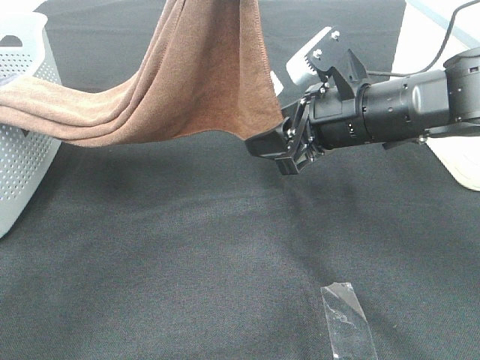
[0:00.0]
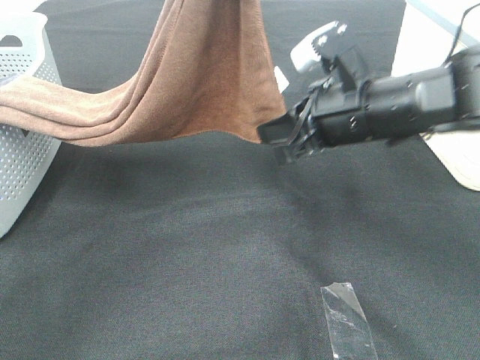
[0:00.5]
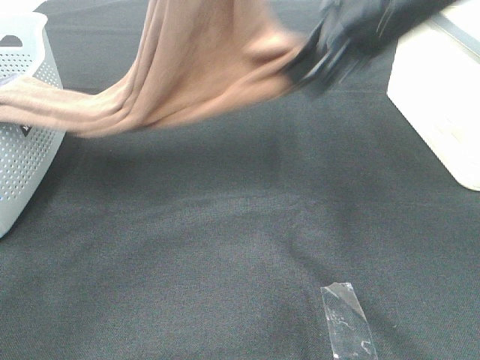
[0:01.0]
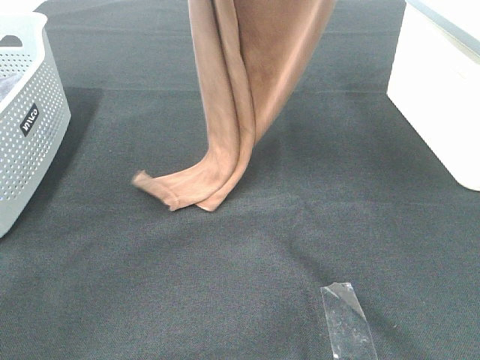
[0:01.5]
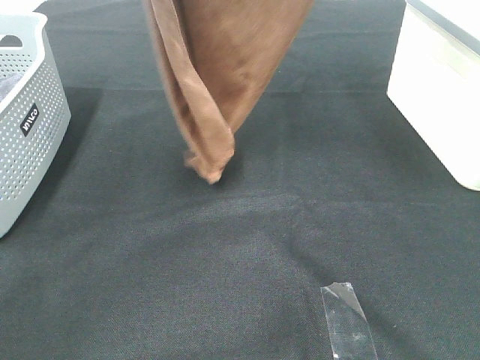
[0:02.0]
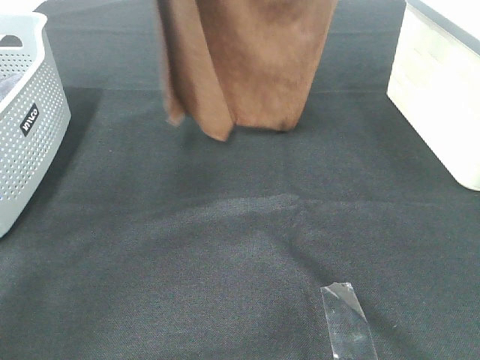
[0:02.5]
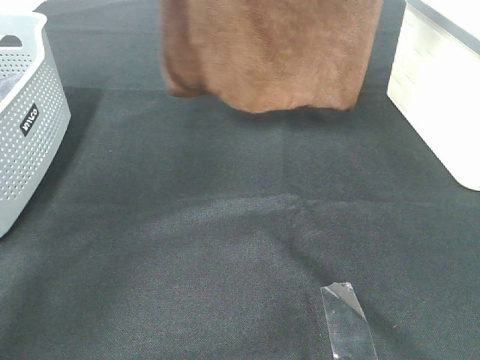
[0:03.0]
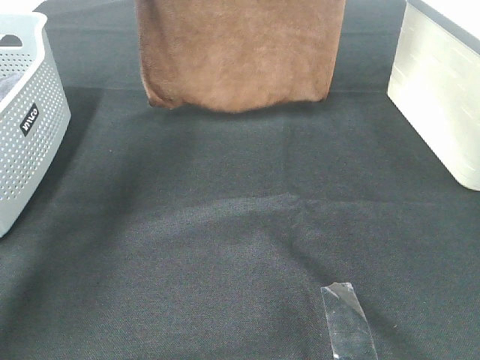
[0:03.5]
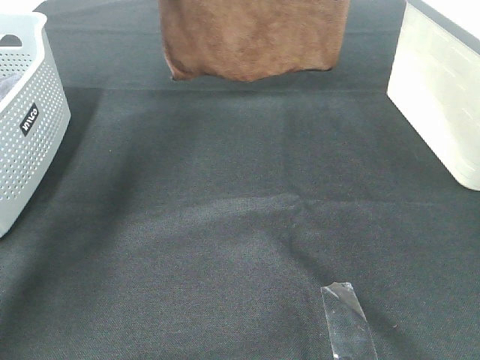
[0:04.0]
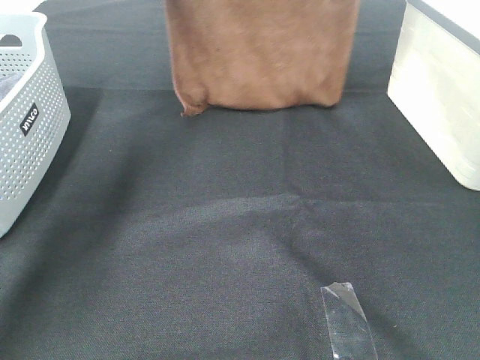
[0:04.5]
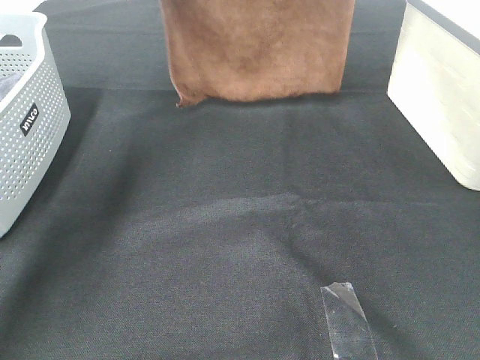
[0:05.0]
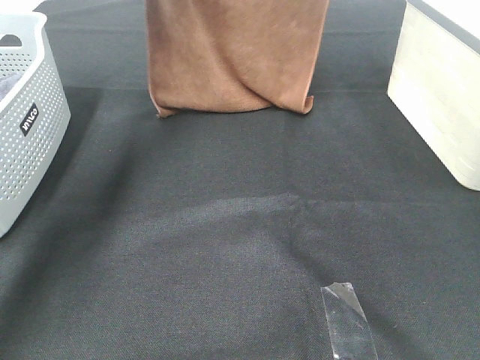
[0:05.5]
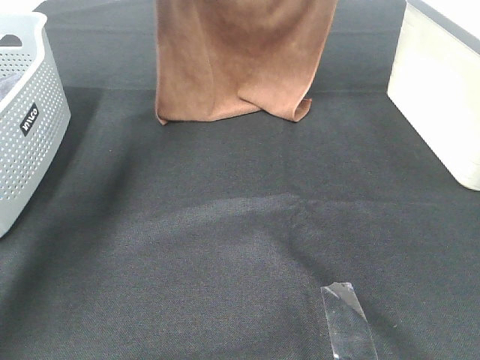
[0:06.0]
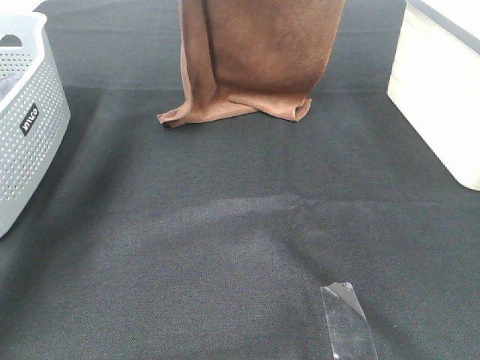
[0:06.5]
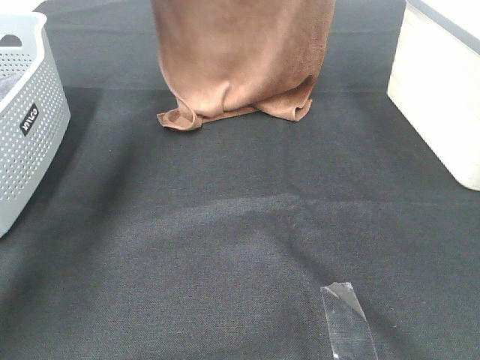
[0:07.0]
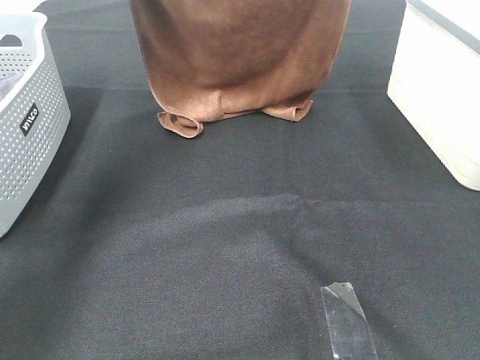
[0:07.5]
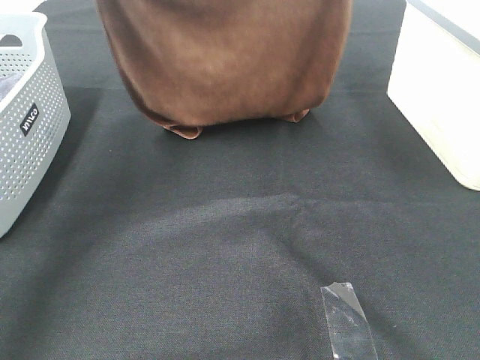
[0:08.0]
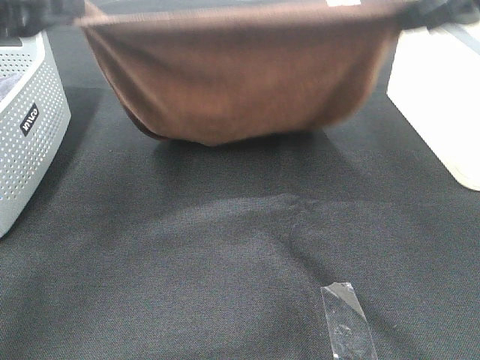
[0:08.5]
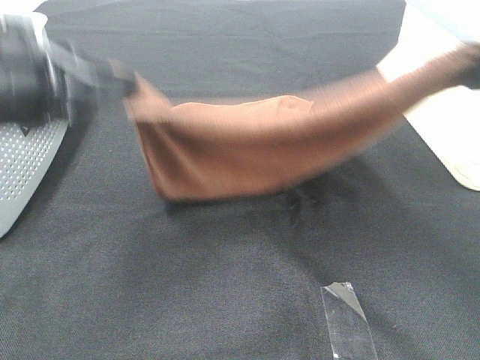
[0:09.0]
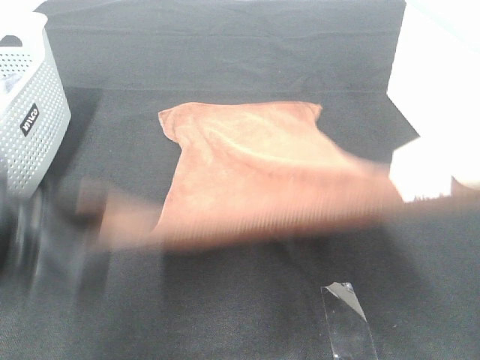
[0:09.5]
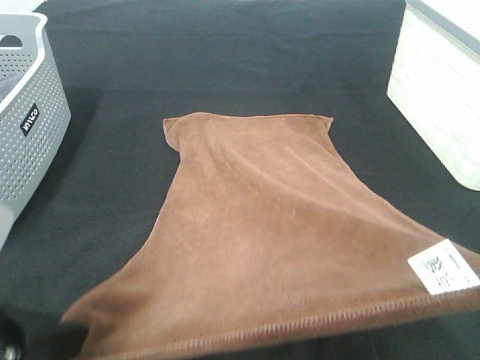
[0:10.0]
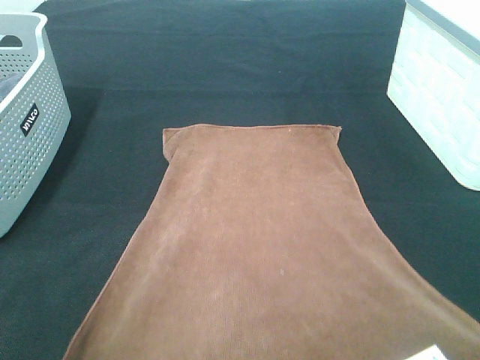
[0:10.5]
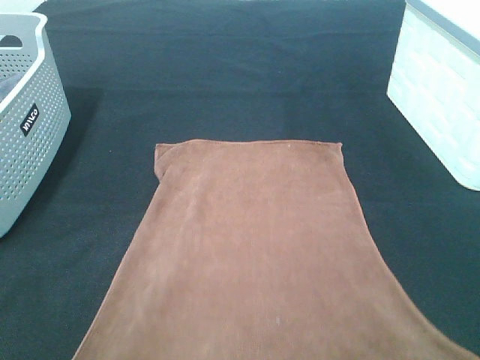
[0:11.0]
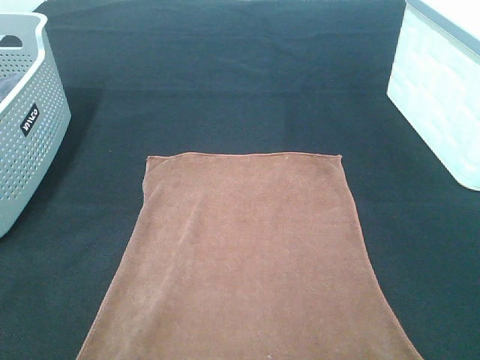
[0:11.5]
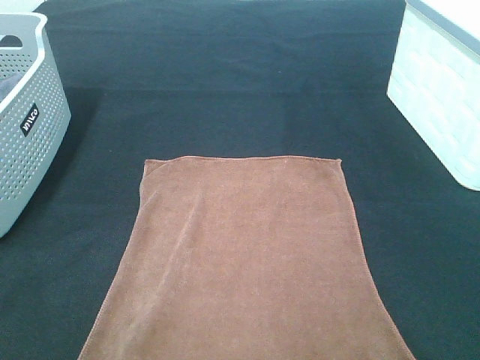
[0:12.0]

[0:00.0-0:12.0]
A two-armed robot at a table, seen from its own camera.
Task of the whole recording: Remove the towel and place it.
Step, 0:00.0 to 0:07.5: Left hand: spread the brown towel flat on the table.
Step, 0:00.0 to 0:07.5: Right hand: spread the brown towel flat on the table.
0:00.0 to 0:02.0: The right gripper shifts some 30 cm upward, and closes up, while the left gripper goes approximately 10 cm upward.
0:02.0 to 0:04.0: Both grippers travel together forward, approximately 15 cm.
0:04.0 to 0:06.0: Both grippers move downward, about 5 cm.
0:06.0 to 0:08.0: The left gripper moves backward, about 20 cm. The right gripper heads backward, covering some 10 cm.
0:08.0 to 0:10.0: Both grippers travel together backward, roughly 30 cm.
0:10.0 to 0:12.0: The right gripper shifts by some 5 cm, while the left gripper moves backward, approximately 10 cm.

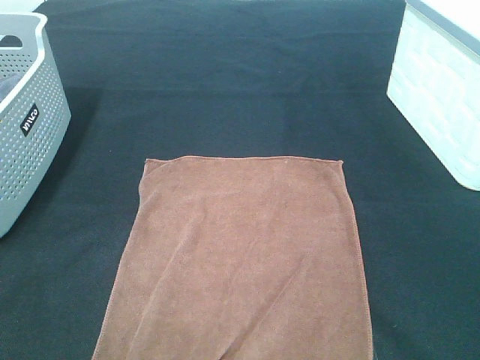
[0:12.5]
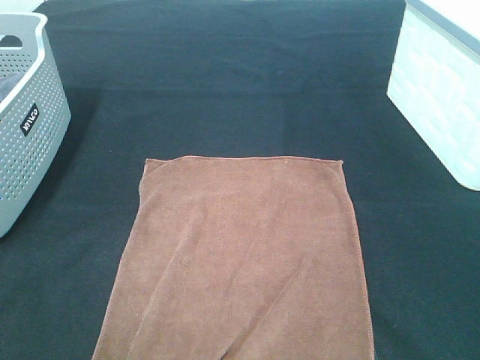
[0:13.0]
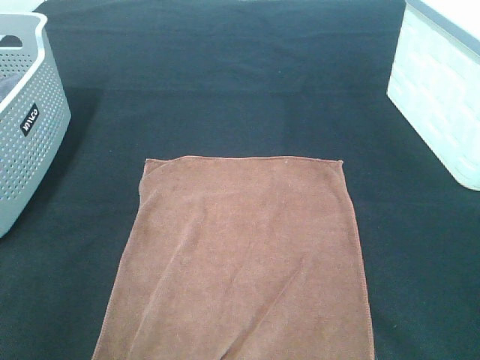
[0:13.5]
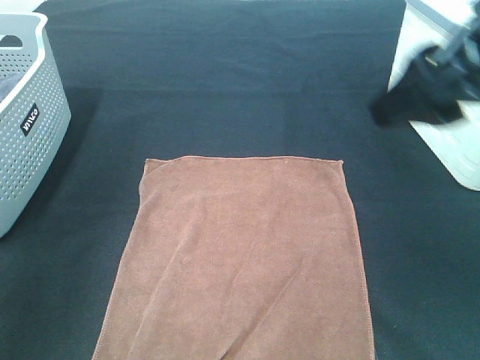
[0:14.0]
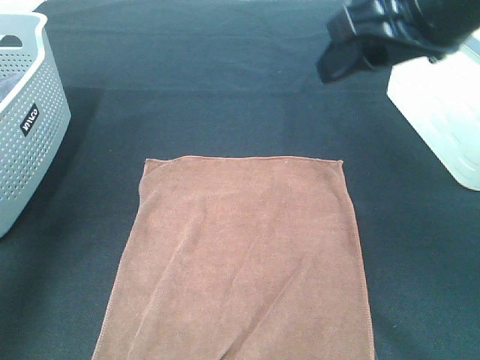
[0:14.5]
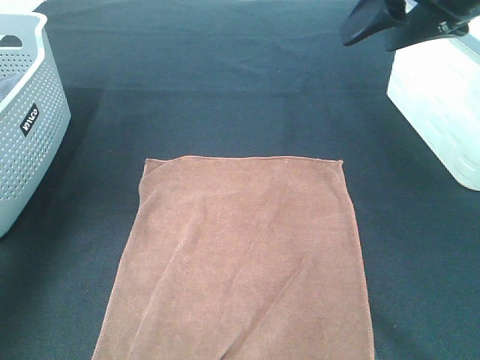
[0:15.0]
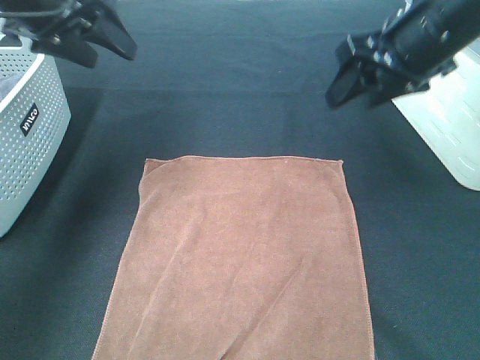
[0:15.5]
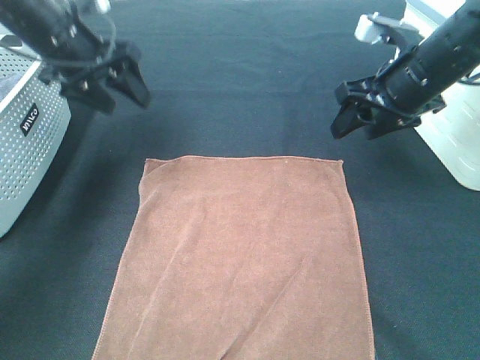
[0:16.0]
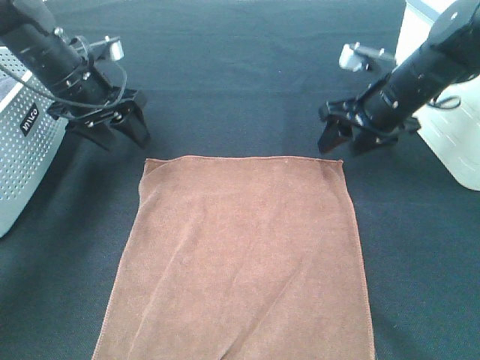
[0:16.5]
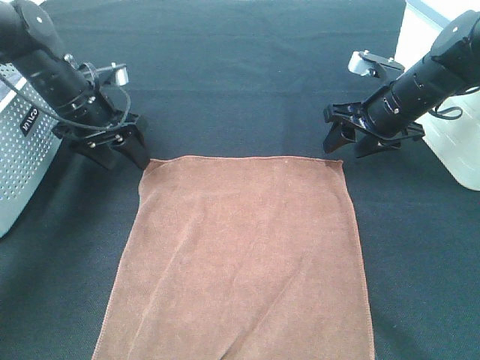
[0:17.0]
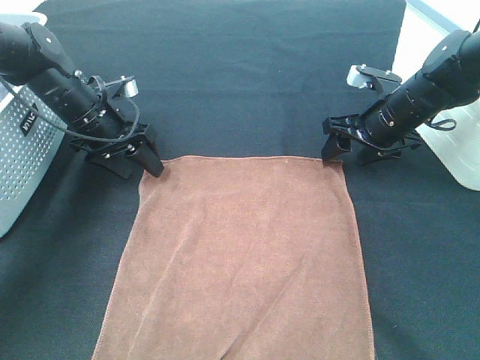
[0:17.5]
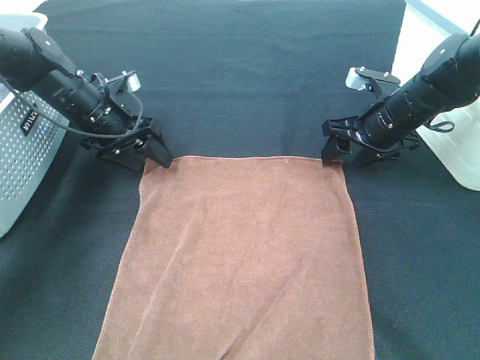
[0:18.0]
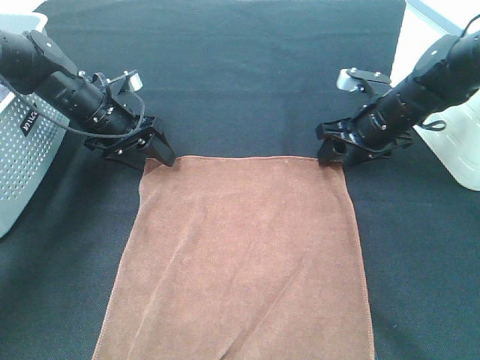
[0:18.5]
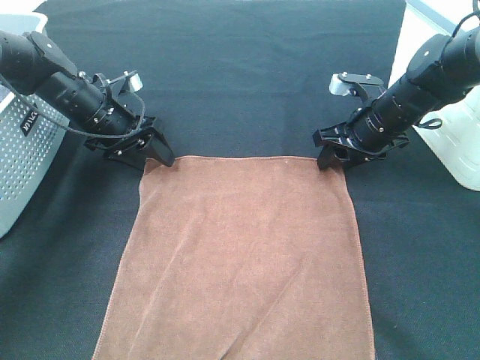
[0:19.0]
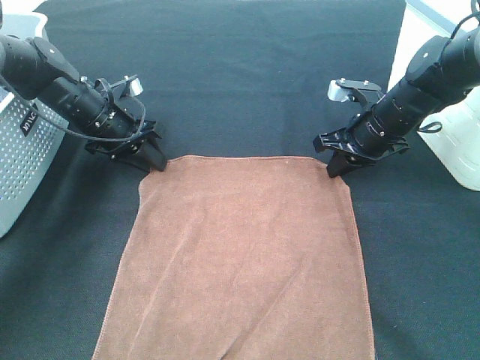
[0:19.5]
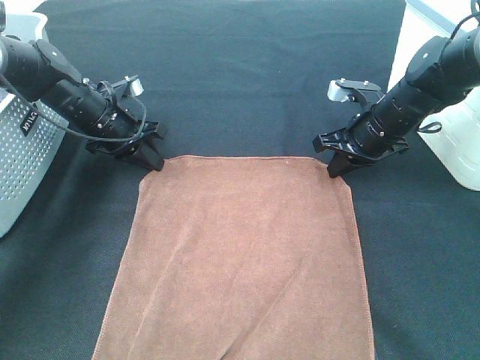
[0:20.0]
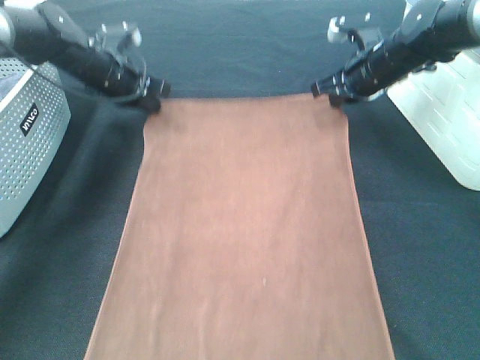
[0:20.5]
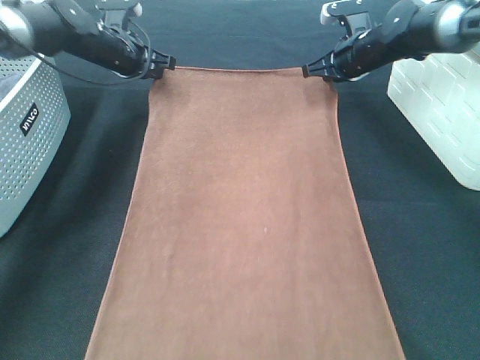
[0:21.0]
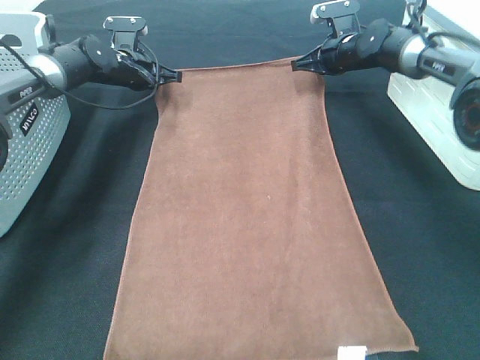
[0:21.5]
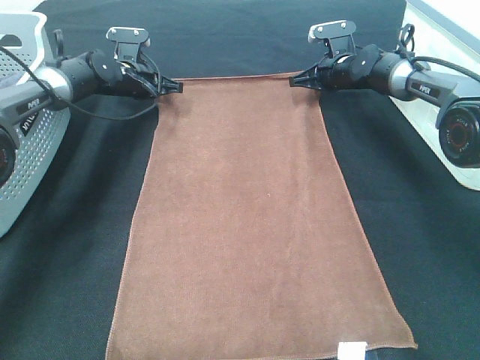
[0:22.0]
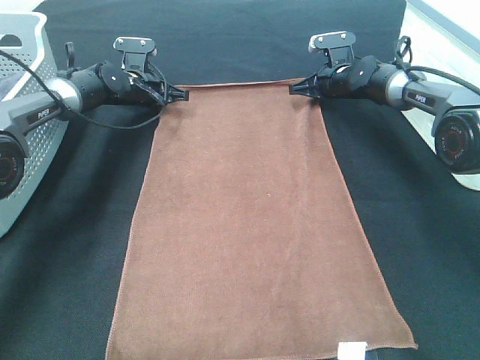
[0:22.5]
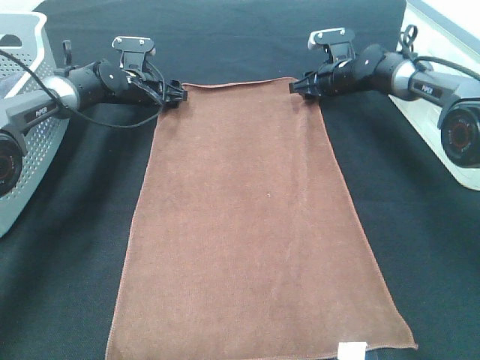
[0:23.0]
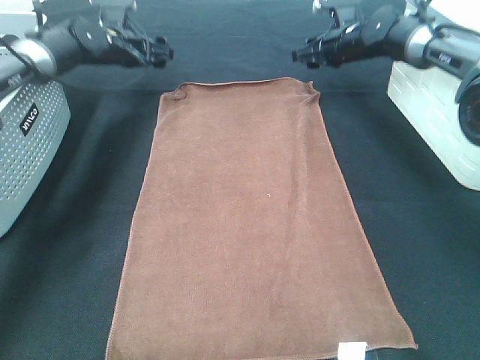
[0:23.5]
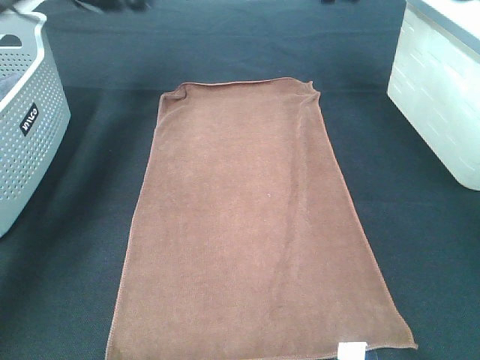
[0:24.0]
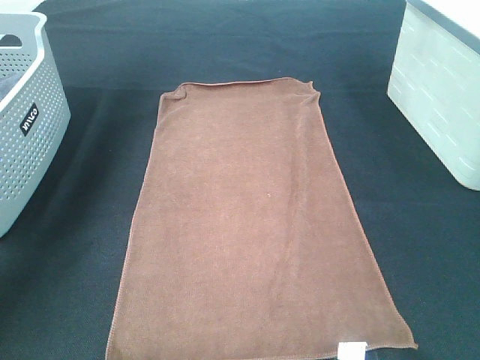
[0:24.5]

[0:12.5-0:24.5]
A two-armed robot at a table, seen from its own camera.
Task of the whole recording: Remove the towel and place it.
Step, 0:12.5 to 0:16.0: Left hand:adjust the brown towel.
Step, 0:12.5 to 0:16.0: Right hand:adjust the brown towel.
0:12.5 to 0:14.5: The right gripper shifts roughly 25 cm forward; the left gripper travels forward and upward by approximately 35 cm.
0:14.5 to 0:16.5: Both grippers move downward and forward, some 25 cm.
0:16.5 to 0:18.5: The left gripper goes some 5 cm downward.
0:18.5 to 0:20.5: The left gripper travels forward by roughly 5 cm, and closes up, while the right gripper moves forward and upward, some 10 cm, and closes.
0:20.5 to 0:22.5: The left gripper moves downward and forward, roughly 10 cm. Meanwhile the right gripper shifts approximately 15 cm forward and downward.
0:22.5 to 0:24.5: The grippers both shift upward by about 30 cm. The right gripper opens its fingers, while the left gripper opens its fingers.

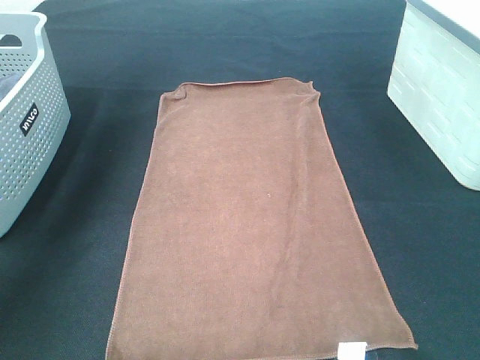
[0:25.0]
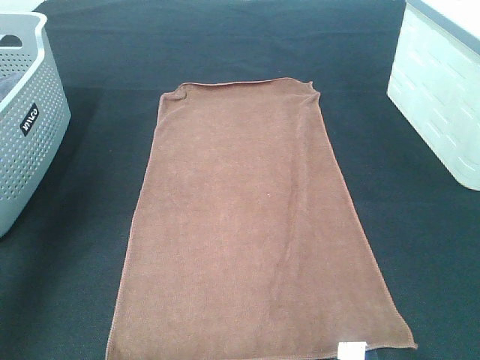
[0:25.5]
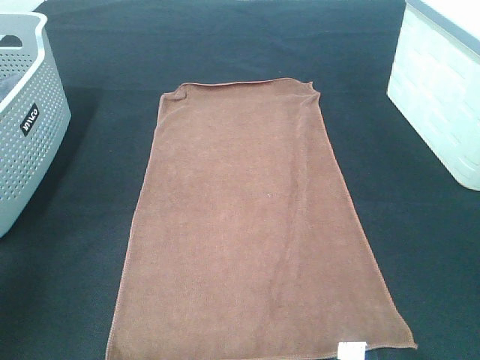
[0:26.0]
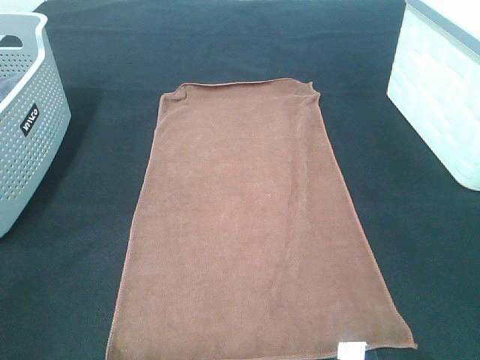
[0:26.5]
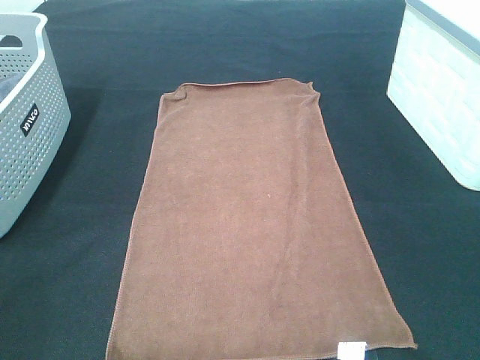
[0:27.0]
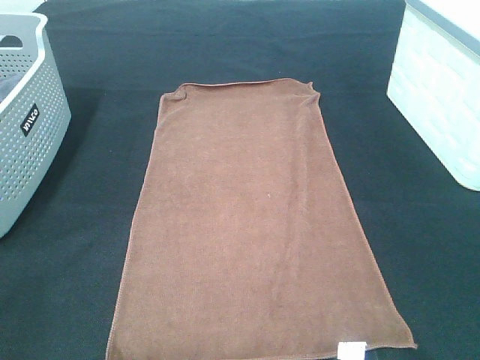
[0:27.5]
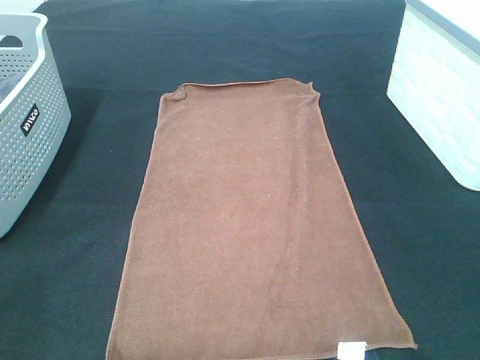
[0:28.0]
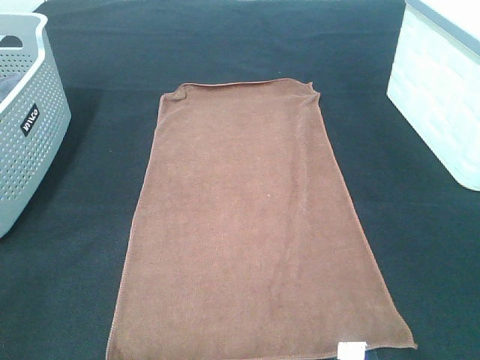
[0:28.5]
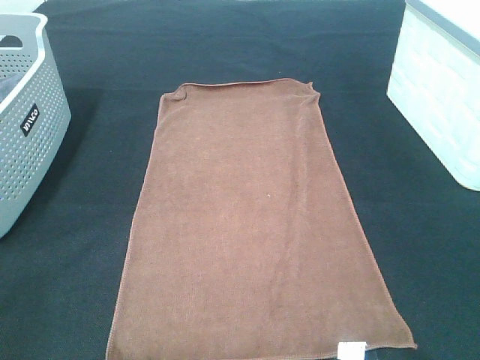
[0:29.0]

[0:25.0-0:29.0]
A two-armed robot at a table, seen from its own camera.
Task of the whole recording: Remove the towel and place it.
0:25.0 to 0:27.0: The two grippers go some 40 cm backward.
